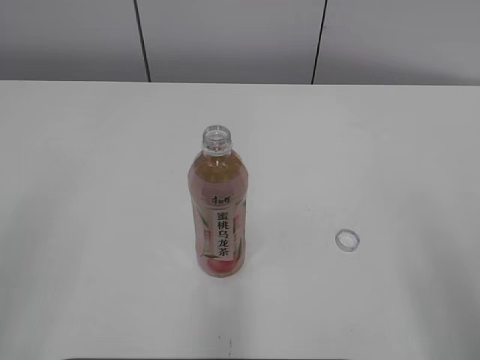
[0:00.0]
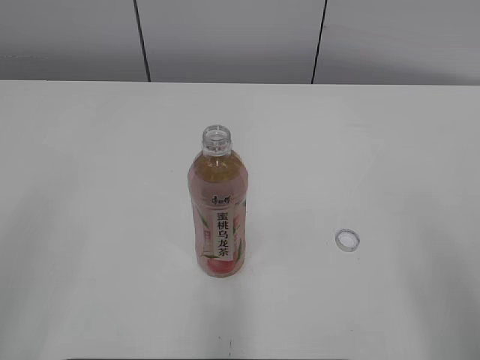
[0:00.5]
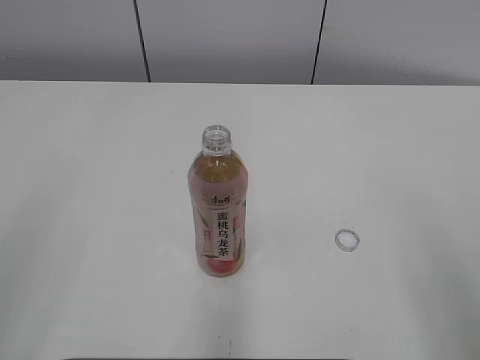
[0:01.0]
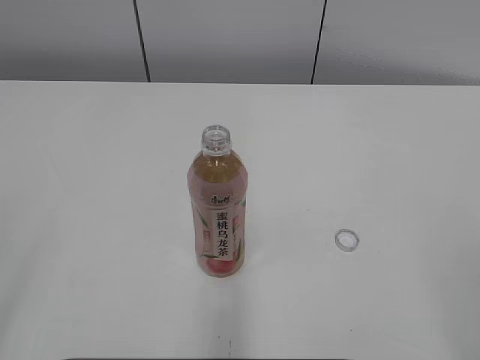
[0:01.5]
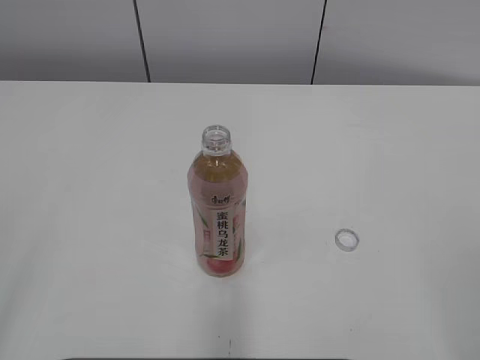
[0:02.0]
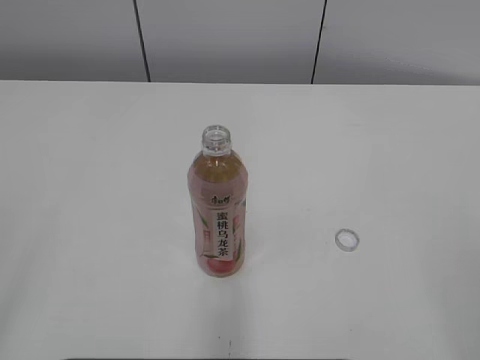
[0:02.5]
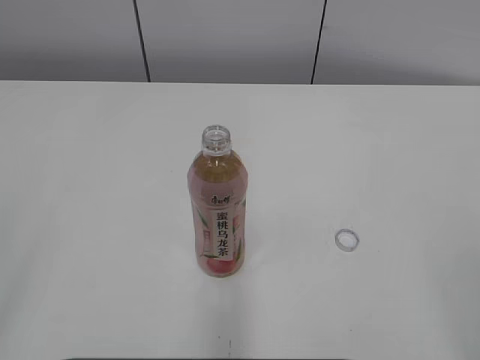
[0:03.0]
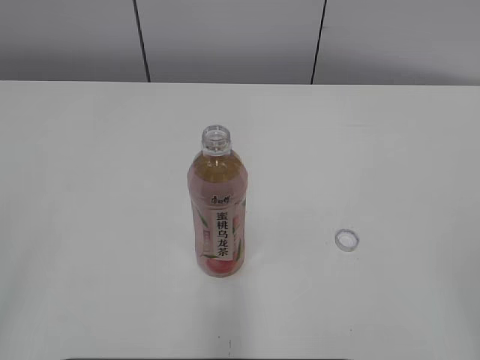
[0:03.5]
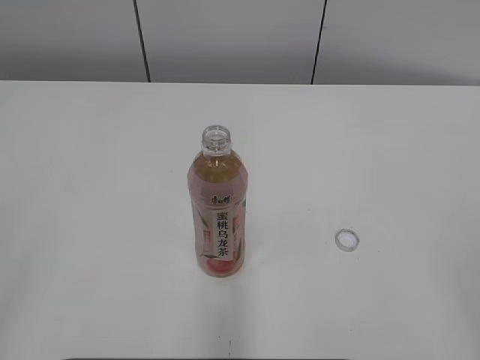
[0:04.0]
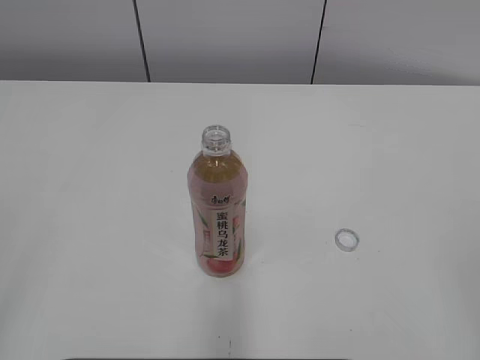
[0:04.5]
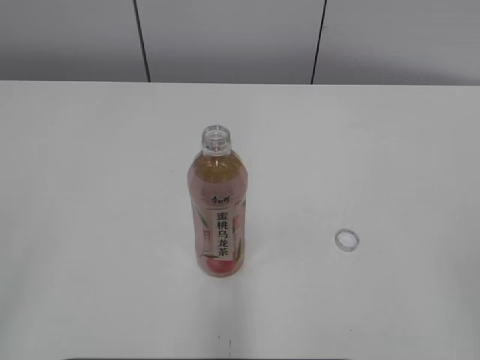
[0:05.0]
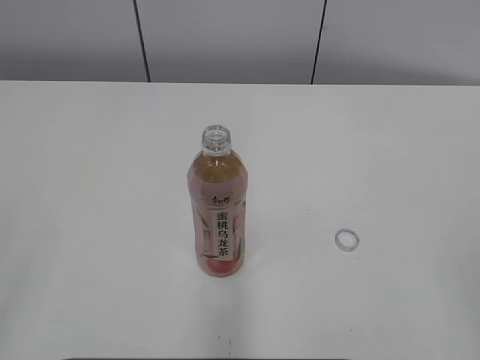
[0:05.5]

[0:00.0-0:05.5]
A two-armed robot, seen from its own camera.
0:03.5 to 0:05.5: Both grippers stay put.

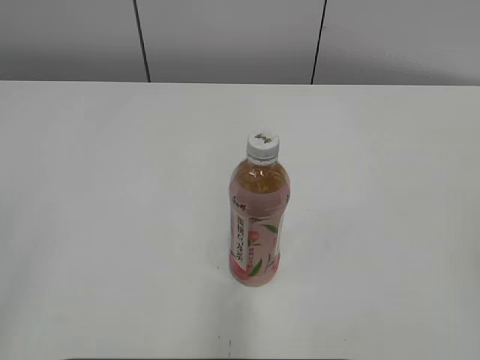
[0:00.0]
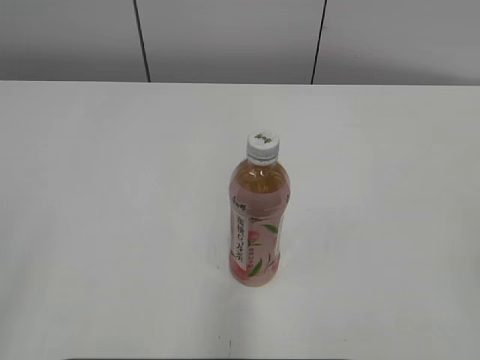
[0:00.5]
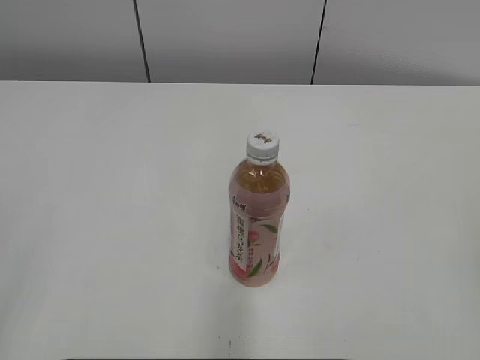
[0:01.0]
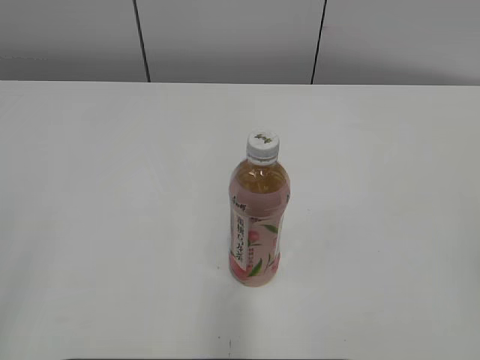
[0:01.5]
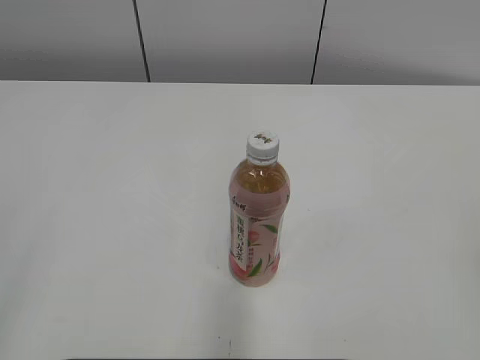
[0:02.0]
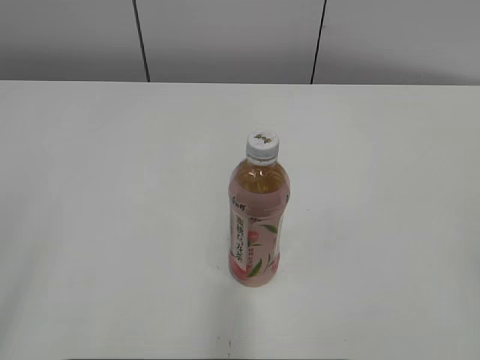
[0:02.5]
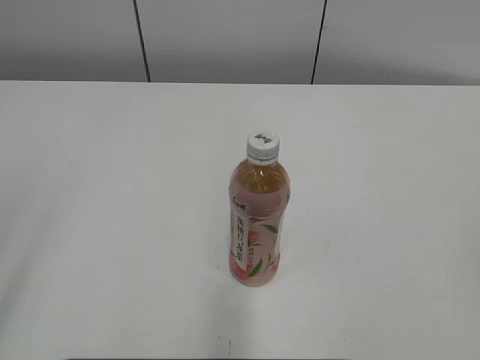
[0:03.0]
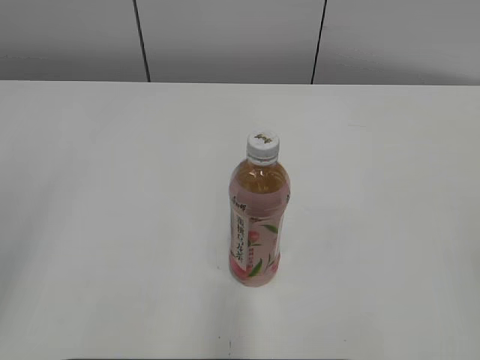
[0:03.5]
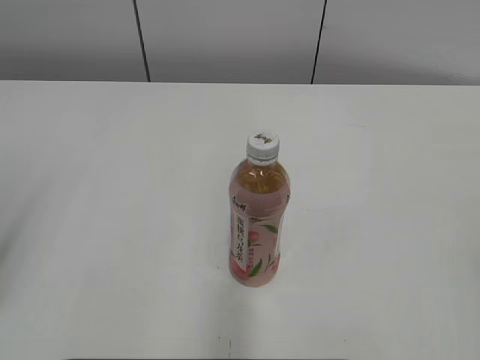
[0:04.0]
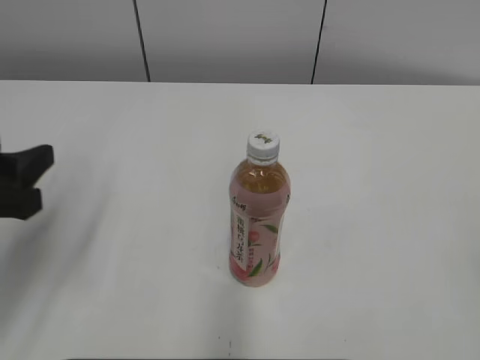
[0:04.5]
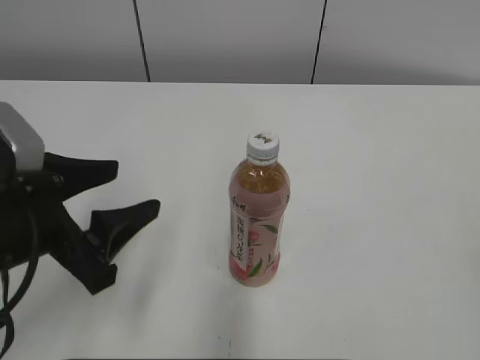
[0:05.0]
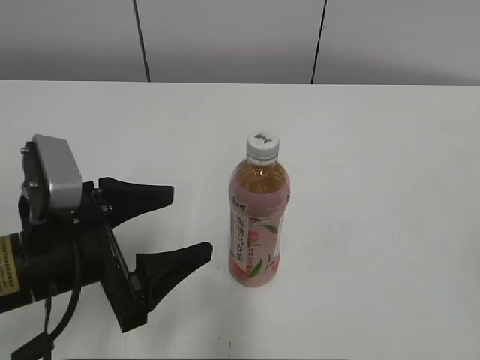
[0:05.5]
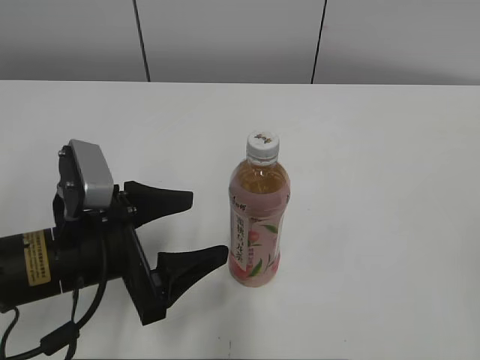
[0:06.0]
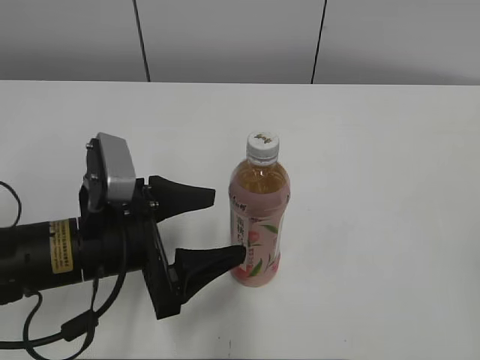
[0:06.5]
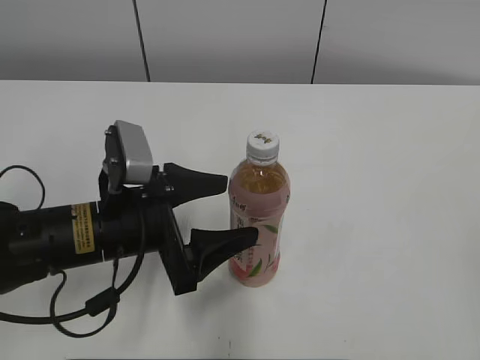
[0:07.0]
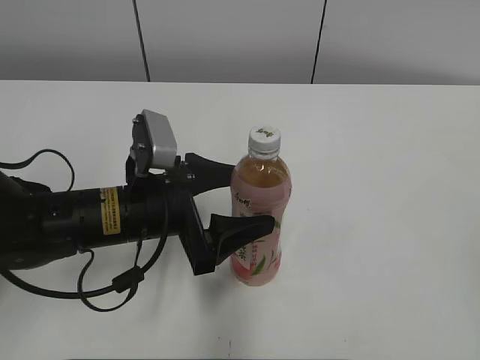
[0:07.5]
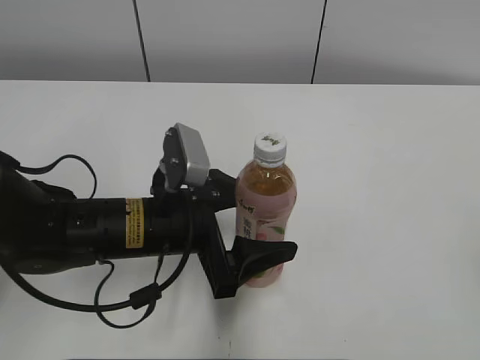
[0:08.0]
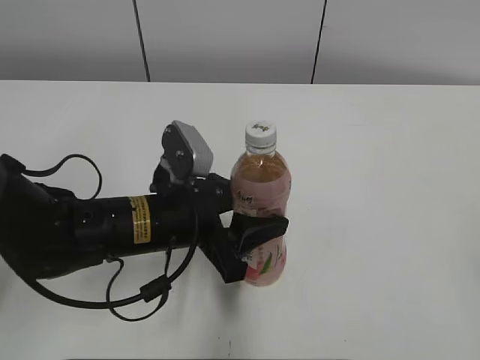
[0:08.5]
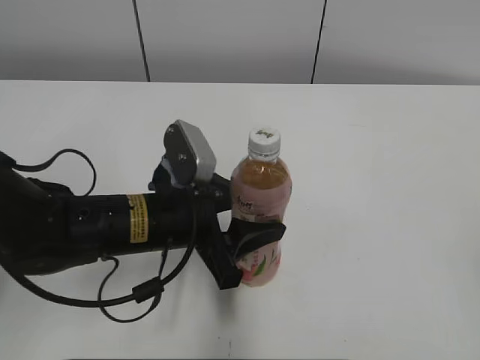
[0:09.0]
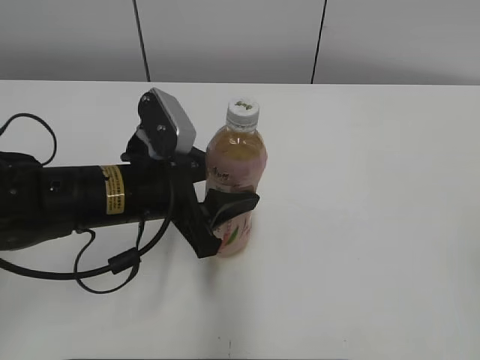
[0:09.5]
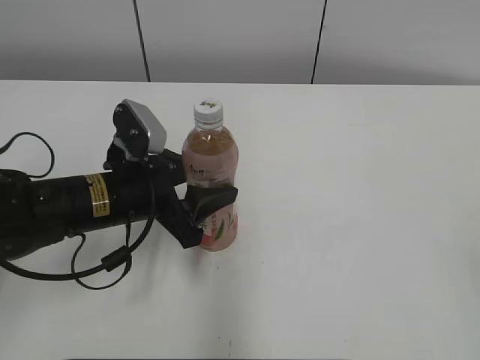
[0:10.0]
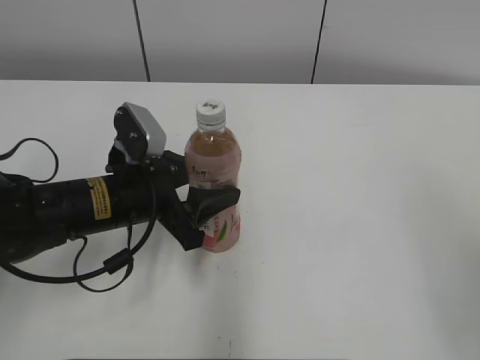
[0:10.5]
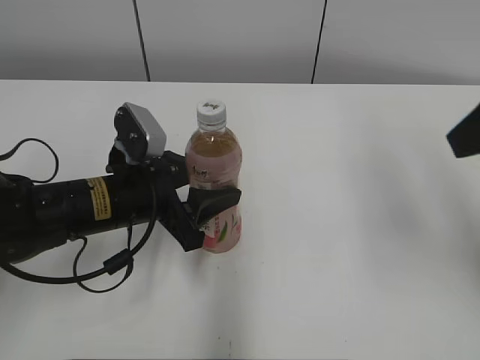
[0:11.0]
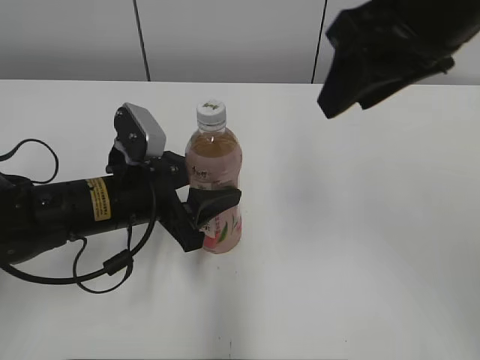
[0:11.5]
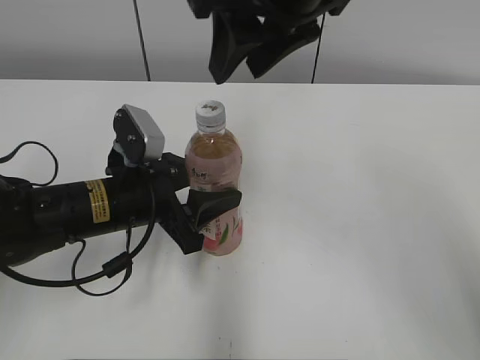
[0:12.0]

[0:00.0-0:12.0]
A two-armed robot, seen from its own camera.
Step, 0:00.0 to 0:08.5: Grab the Peach Oolong Tea with the left hand.
Step, 0:09.0 to 0:10.0: Move the Peach Oolong Tea from right to left.
0:04.0 to 0:06.0: The left gripper goes about 20 cm to the right, downward and forward, and opens.
0:06.0 to 0:08.0: The left gripper is displaced to the right by about 5 cm.
0:08.0 to 0:10.0: The left gripper moves roughly 5 cm, and closes.
0:10.0 to 0:12.0: The right gripper travels forward and to the left by some 40 cm.

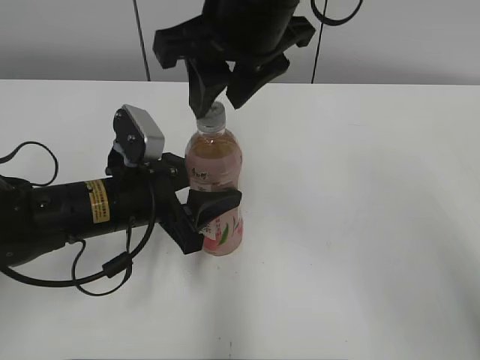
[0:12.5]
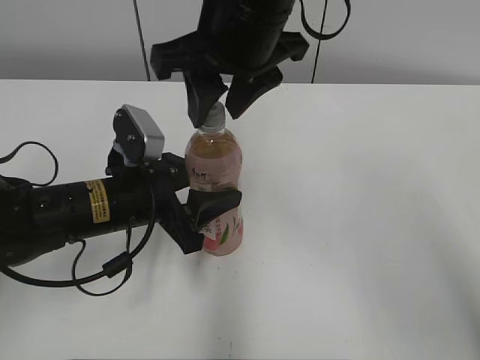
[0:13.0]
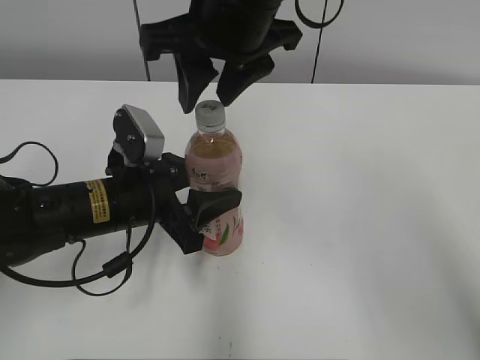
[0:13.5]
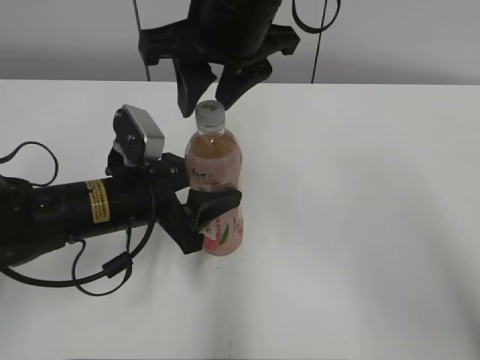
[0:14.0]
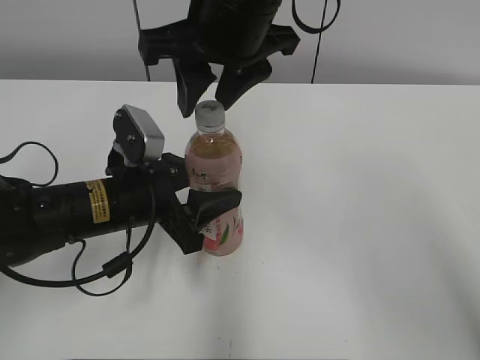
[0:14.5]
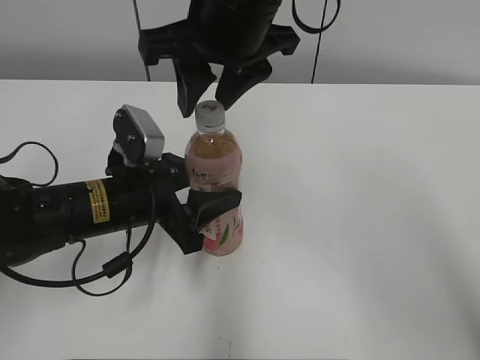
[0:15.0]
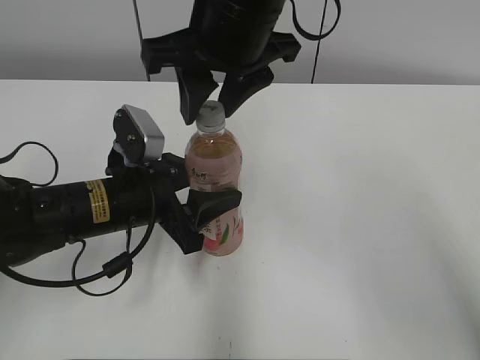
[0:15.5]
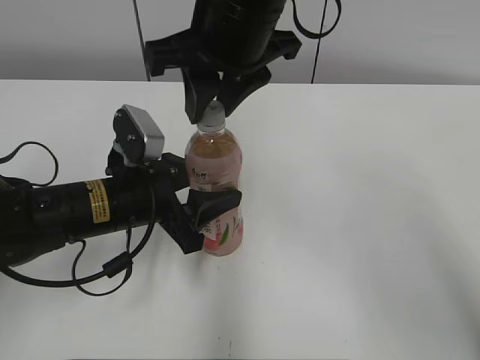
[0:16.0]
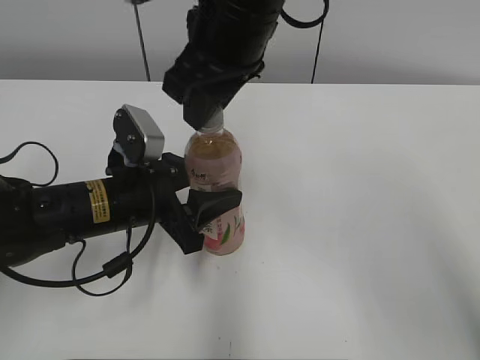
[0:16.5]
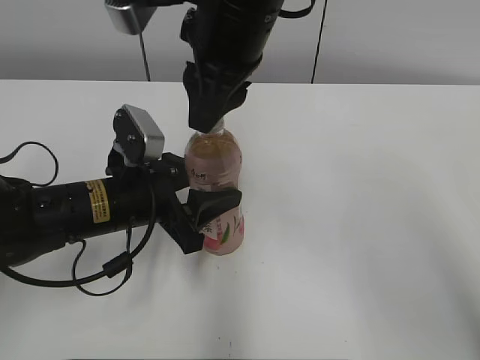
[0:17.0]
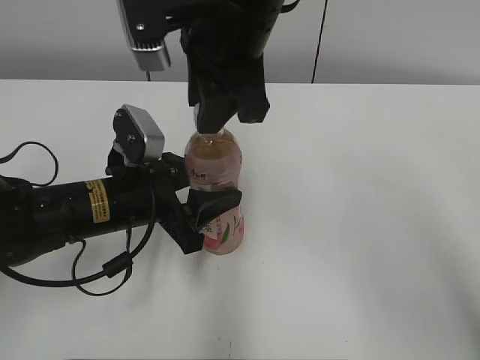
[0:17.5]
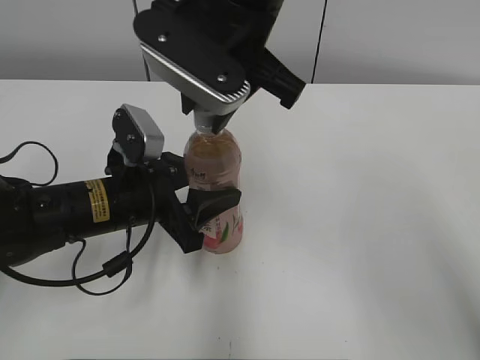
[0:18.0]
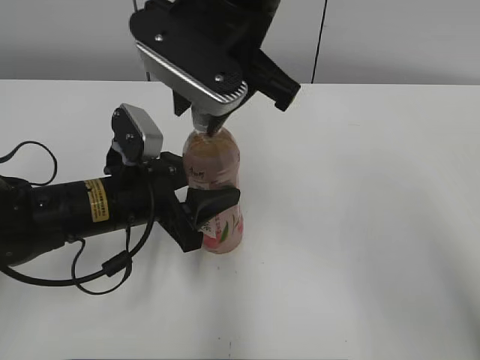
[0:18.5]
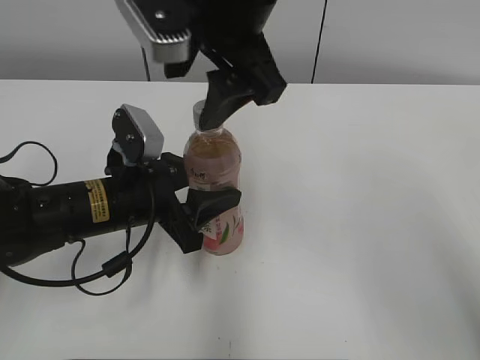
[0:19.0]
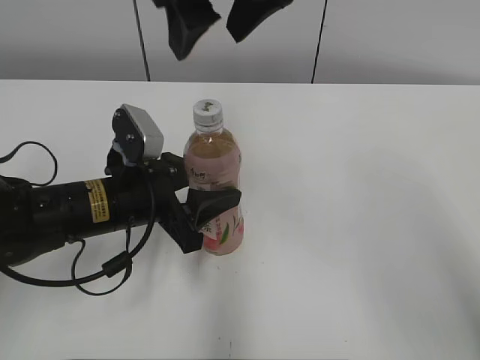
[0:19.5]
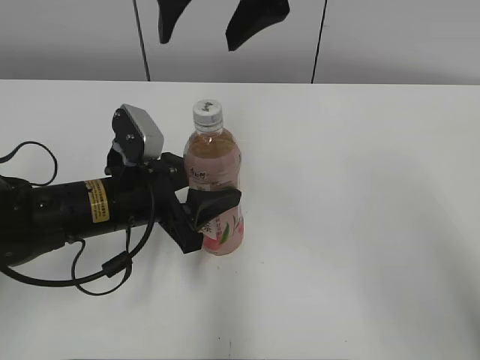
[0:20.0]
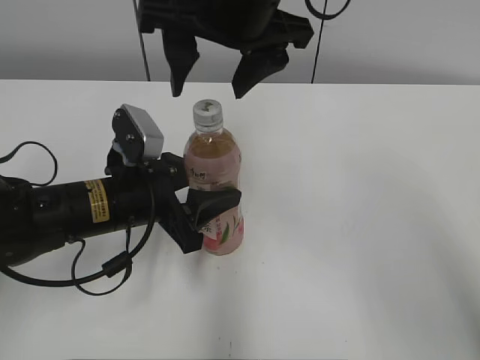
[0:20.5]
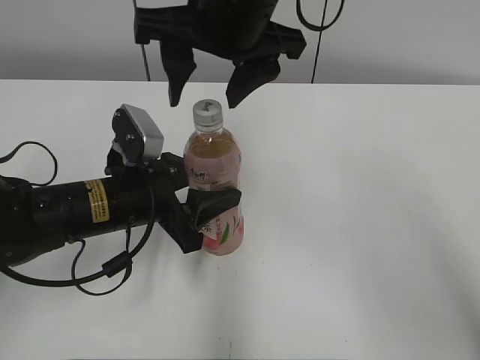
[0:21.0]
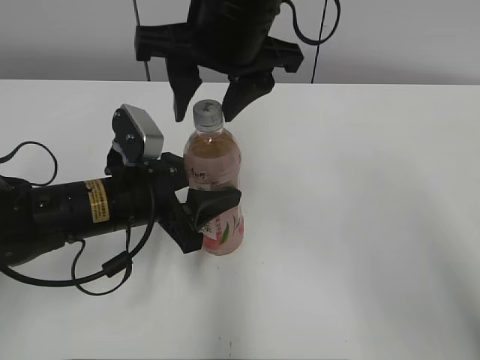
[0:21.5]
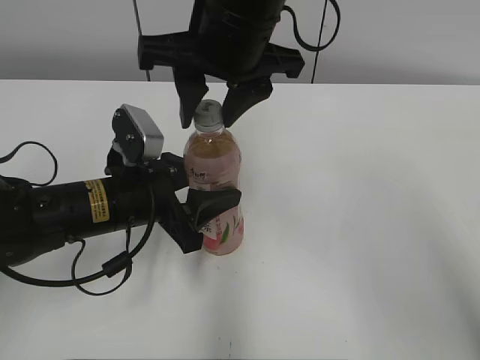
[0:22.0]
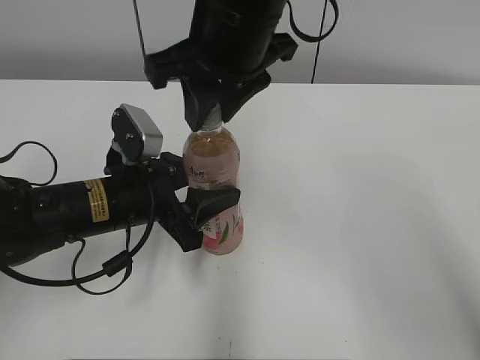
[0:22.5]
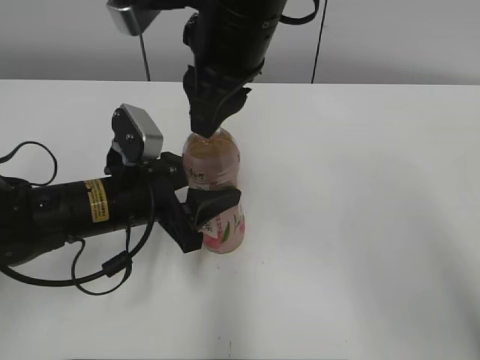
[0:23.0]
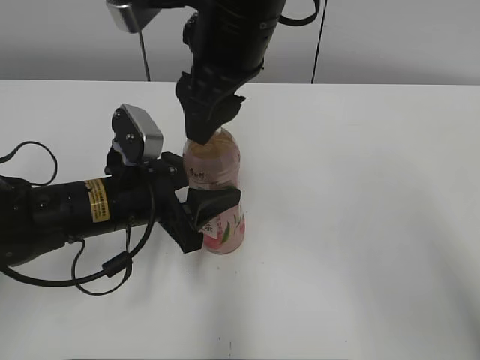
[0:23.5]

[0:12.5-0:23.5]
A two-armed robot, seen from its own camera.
0:12.5 to 0:14.5: The grippers stay close to where they were, moving slightly.
0:14.5 to 0:16.0: Both grippers stay about where they are.
0:18.0 to 0:20.0: The right gripper is displaced upward by about 5 cm, and opens.
0:20.0 to 0:21.5: The right gripper shifts approximately 5 cm downward.
0:21.5 to 0:23.5: The right gripper closes, then reopens.
